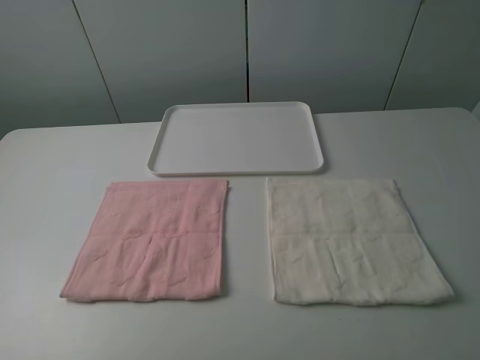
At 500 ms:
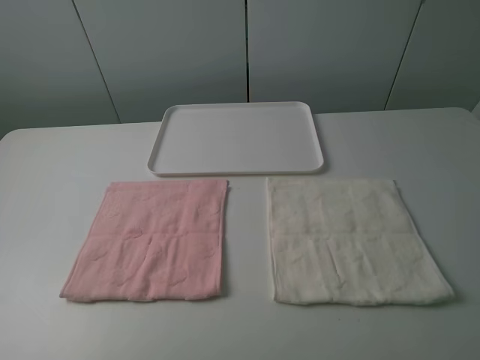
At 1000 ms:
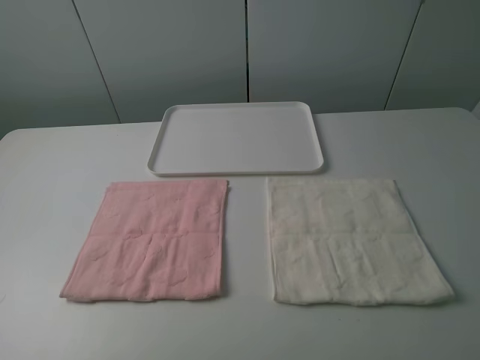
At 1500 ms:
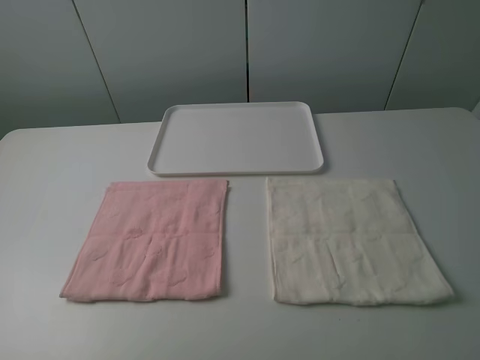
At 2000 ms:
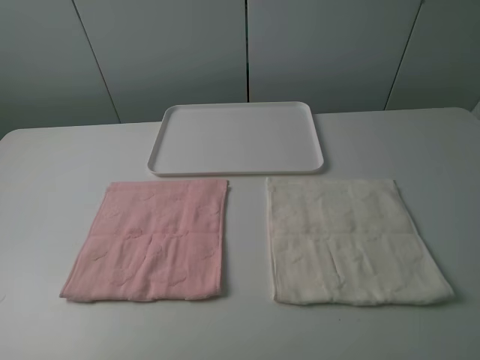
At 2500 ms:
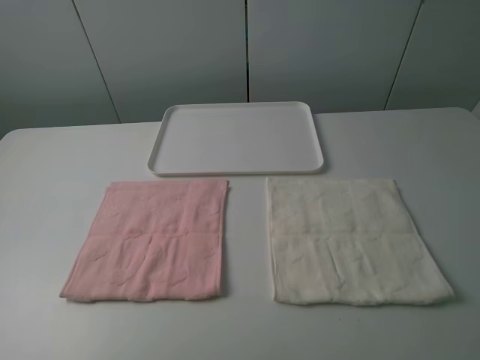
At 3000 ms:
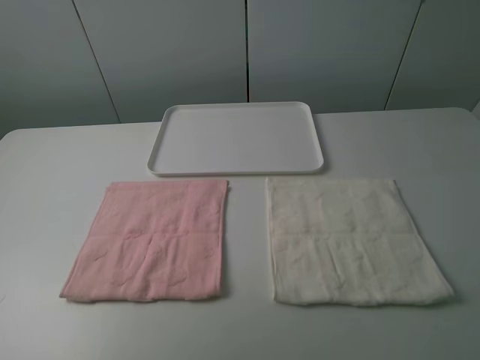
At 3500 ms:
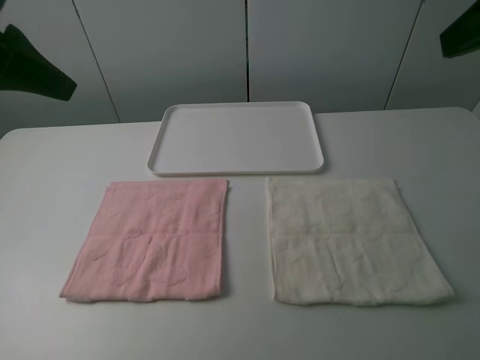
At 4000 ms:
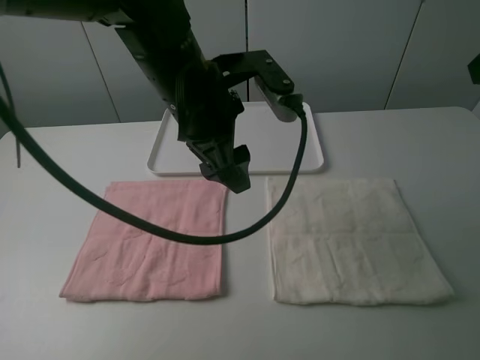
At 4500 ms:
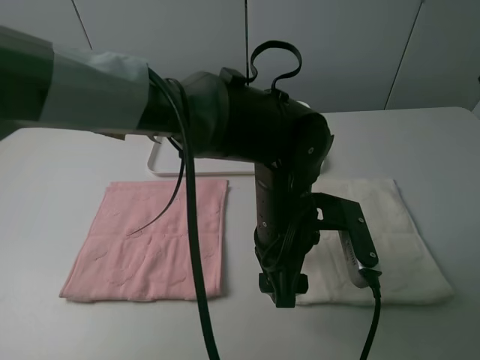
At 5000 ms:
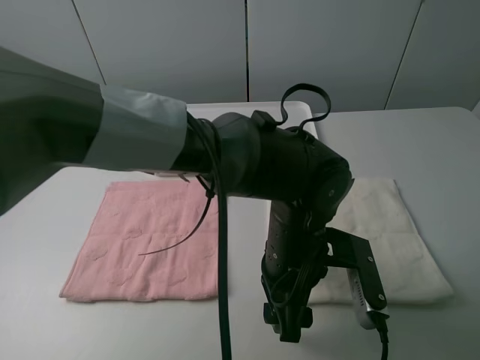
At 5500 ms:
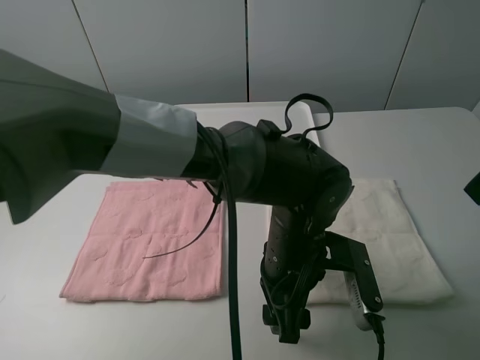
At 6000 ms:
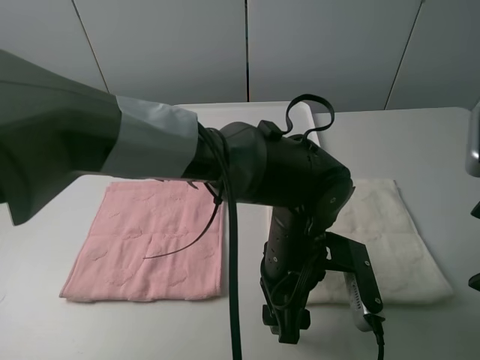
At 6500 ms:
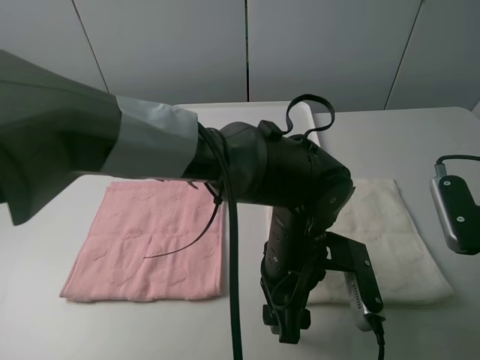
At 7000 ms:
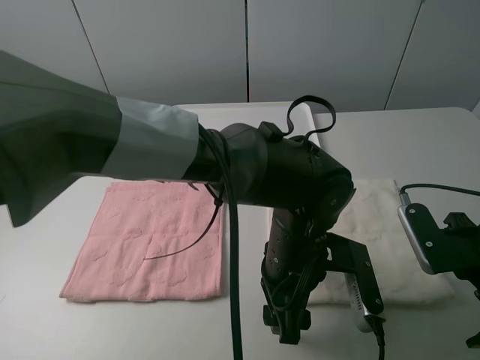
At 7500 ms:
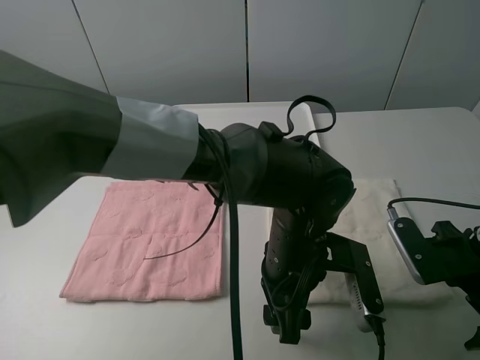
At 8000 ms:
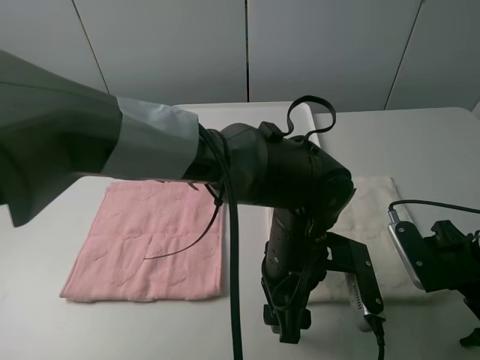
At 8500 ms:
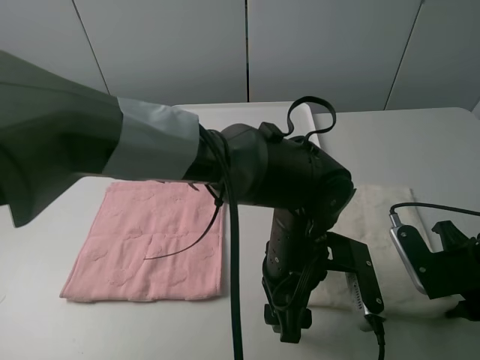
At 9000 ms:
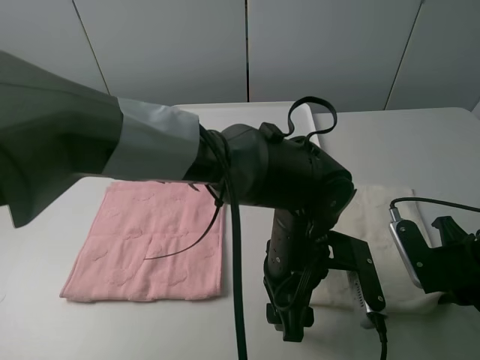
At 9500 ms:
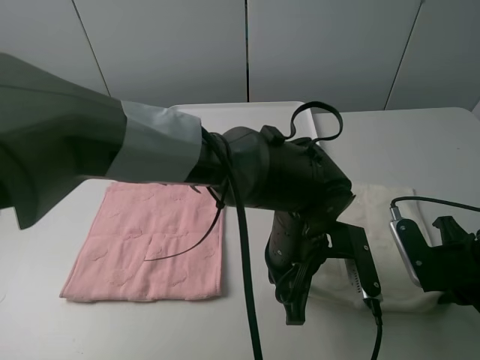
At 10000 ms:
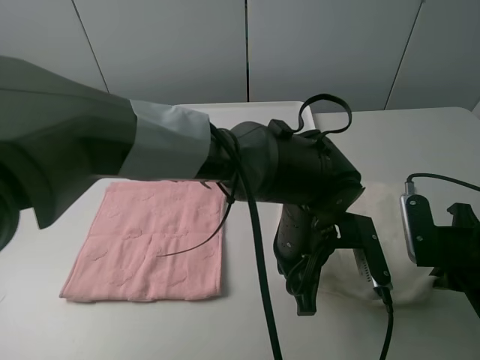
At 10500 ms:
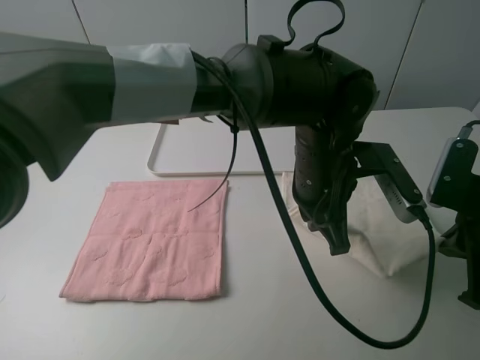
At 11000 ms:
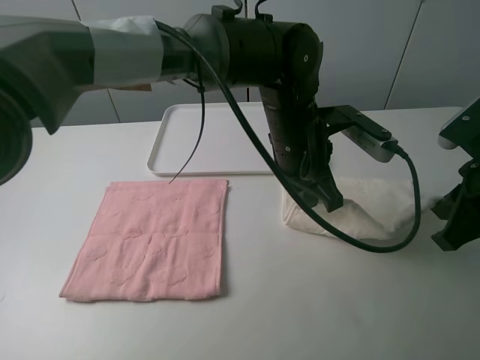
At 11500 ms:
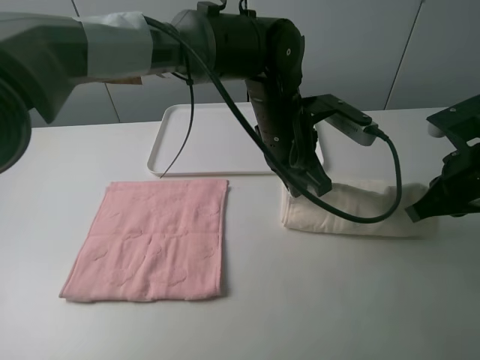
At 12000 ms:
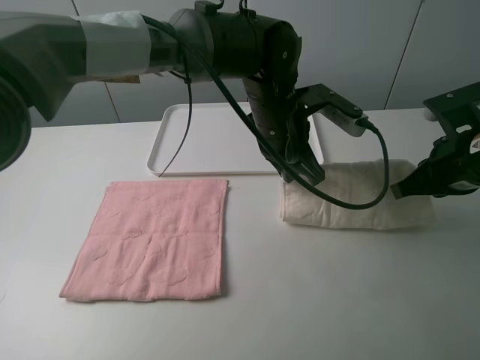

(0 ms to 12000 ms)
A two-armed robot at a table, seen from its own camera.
Task of the whole recording: fold one of the towels by two grippers and place it on the tray,then fold another towel by two grippers and place it on the folded towel.
Step, 0 ms - 9500 ms: Grasp the white towel with the left gripper.
0 ms - 2000 ms: Both grippers stay about where they are.
2000 ms - 4000 ms: The left gripper travels forward and to the right by approximately 40 cm. The right gripper shifts approximately 20 cm forward and upward.
4000 ms - 6000 ms: The right gripper shifts about 15 cm downward. The left gripper shifts roughly 20 cm downward, to the right and backward.
6000 ms - 8000 ms: The right gripper travels downward by about 10 cm.
8000 ms - 10000 ms: The right gripper closes up. Meanwhile the left gripper closes up.
10000 ms - 12000 ms: The right gripper travels forward by approximately 10 cm; the left gripper heads forward and upward, covering roughly 15 cm.

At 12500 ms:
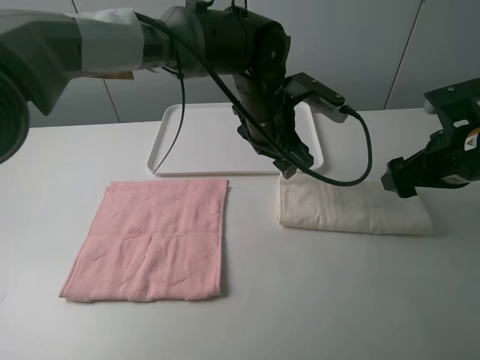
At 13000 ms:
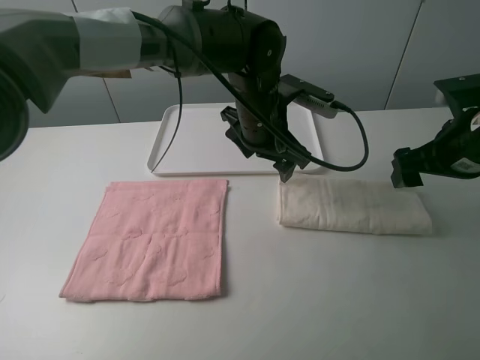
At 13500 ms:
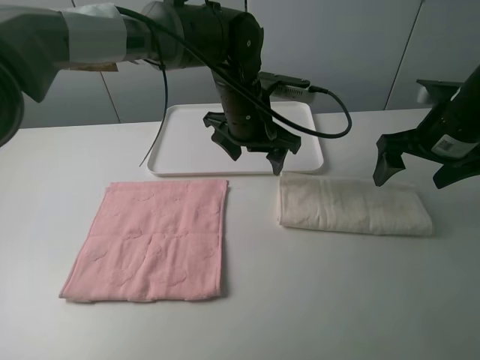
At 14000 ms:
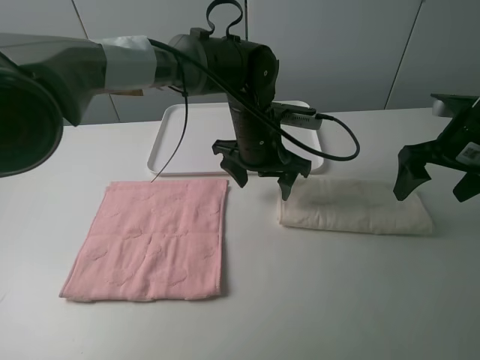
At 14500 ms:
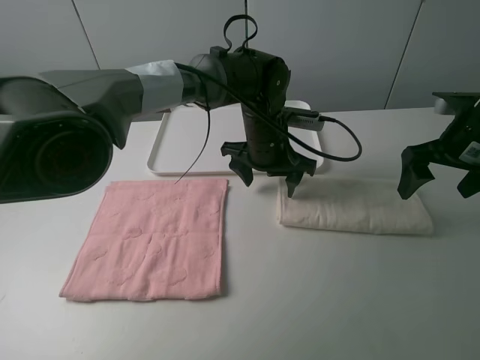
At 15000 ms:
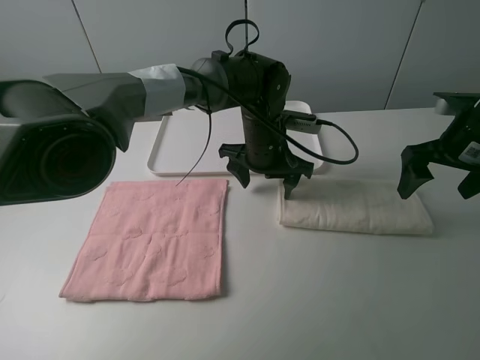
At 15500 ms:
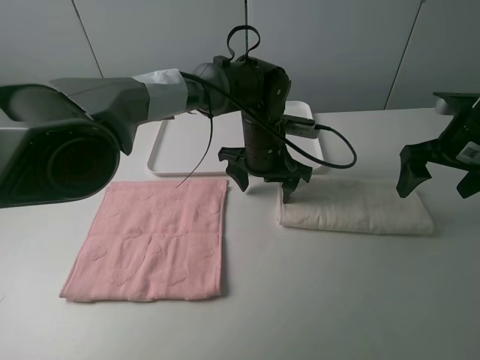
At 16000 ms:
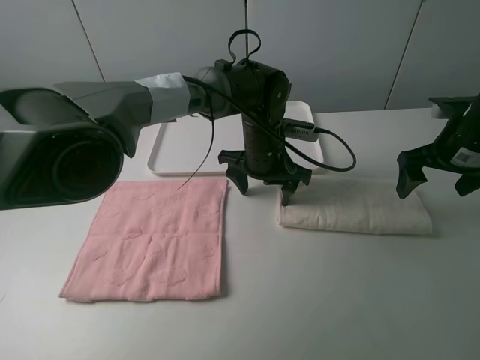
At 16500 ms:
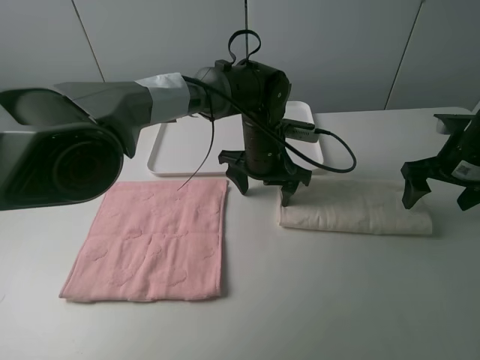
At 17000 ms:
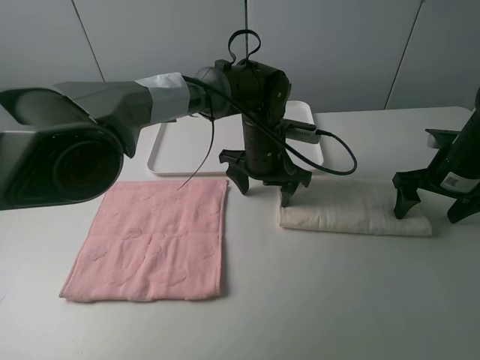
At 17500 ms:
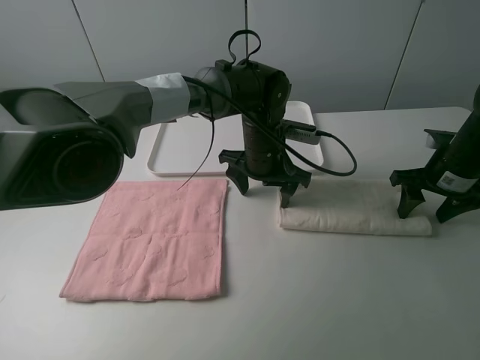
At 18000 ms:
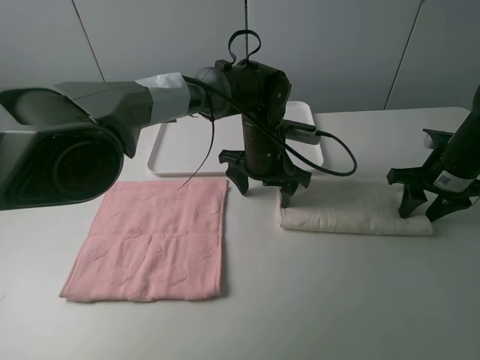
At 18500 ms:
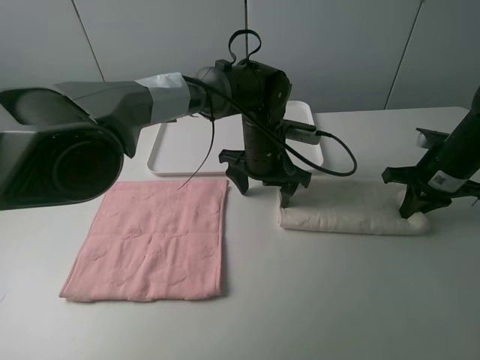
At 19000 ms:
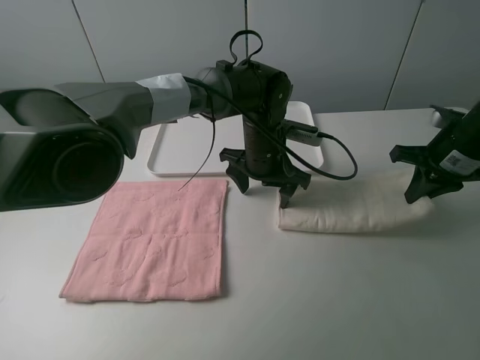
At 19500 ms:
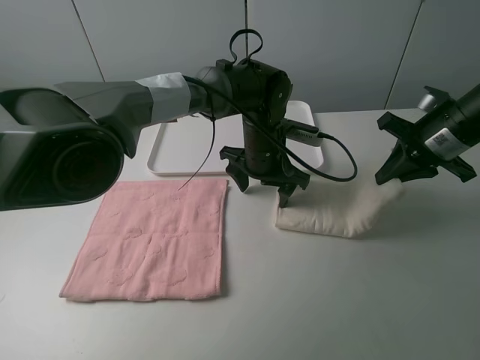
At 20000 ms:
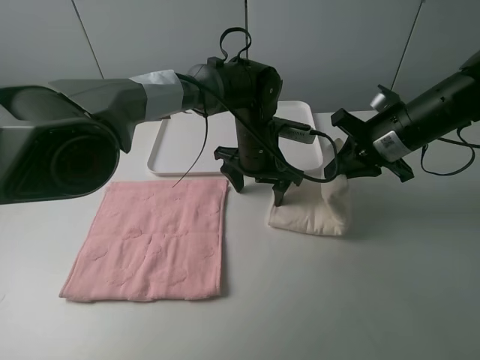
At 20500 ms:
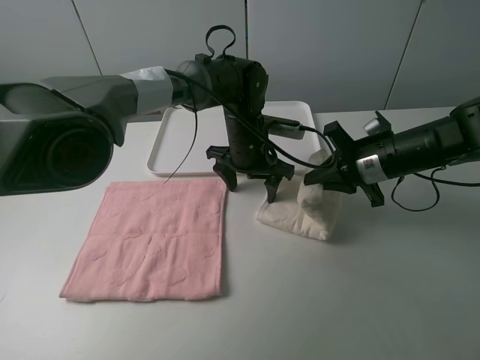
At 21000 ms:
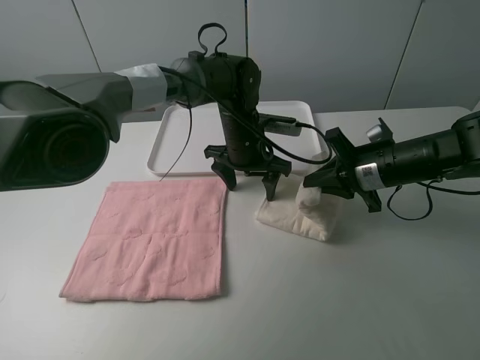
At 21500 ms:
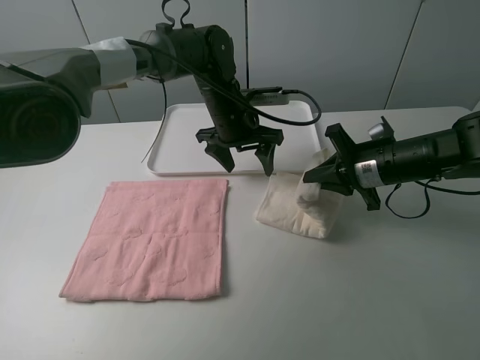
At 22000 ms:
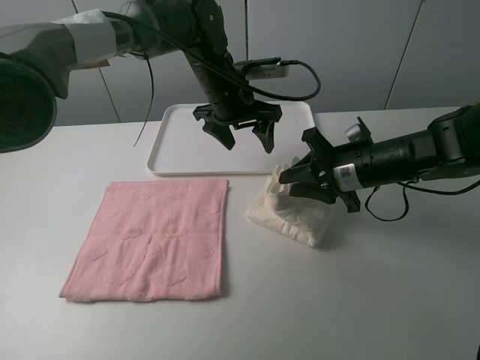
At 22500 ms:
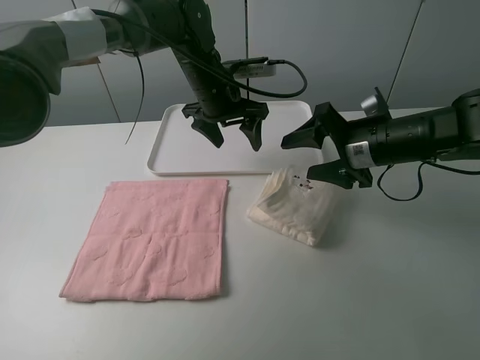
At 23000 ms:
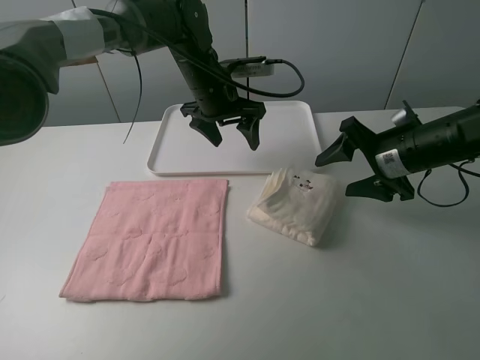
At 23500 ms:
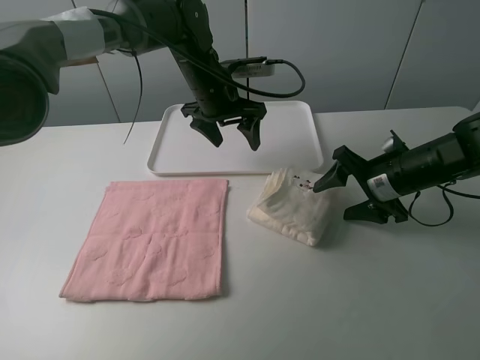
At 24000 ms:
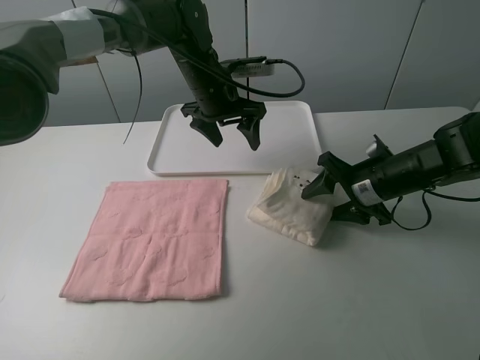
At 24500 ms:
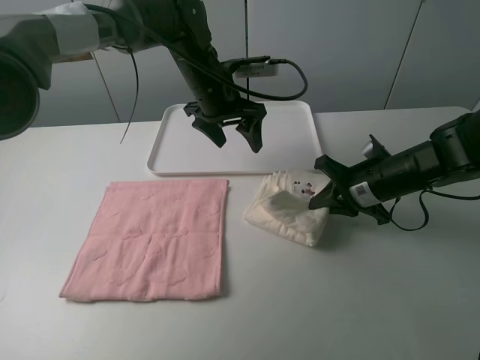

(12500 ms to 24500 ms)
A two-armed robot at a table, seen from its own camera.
Task of the whole recording: fold one of the towels by two grippers and place it on the tray,then fold another towel by two grippers and place it on the folded towel.
Step, 14000 ms - 15500 ms: Press the white towel with the left gripper.
Step, 16000 ms - 18500 ms: Grasp the white towel with the right gripper.
Step, 19000 ms - 22000 ms: Fold the white towel from right to left with right gripper.
Step, 22500 ms - 24000 ms: Grasp the white towel with the right gripper.
12500 ms - 14500 ms: The right gripper changes place by some 5 cm. The left gripper heads downward, covering roughly 5 cm.
14500 ms - 16500 ms: The right gripper is displaced downward by some 5 cm.
16500 ms - 18500 ms: The right gripper closes its fingers.
18500 ms - 20500 ms: The right gripper is displaced to the left by about 10 cm.
20500 ms - 22500 ms: The left gripper goes roughly 10 cm upward and to the left; the right gripper opens.
22500 ms - 24500 ms: The right gripper shifts roughly 5 cm downward, and closes its fingers.

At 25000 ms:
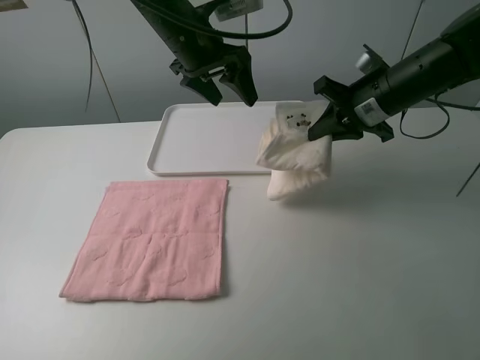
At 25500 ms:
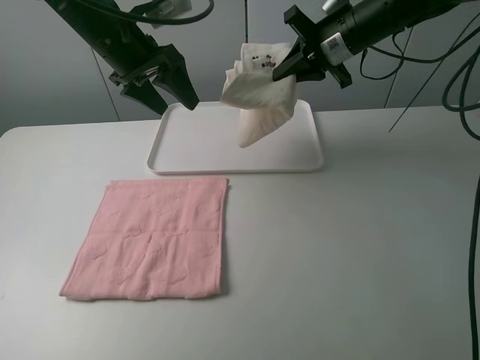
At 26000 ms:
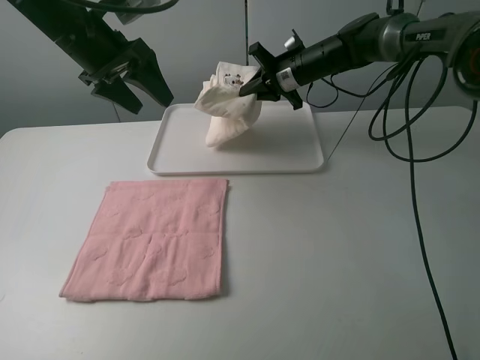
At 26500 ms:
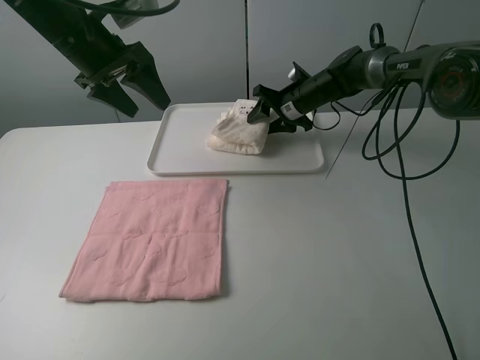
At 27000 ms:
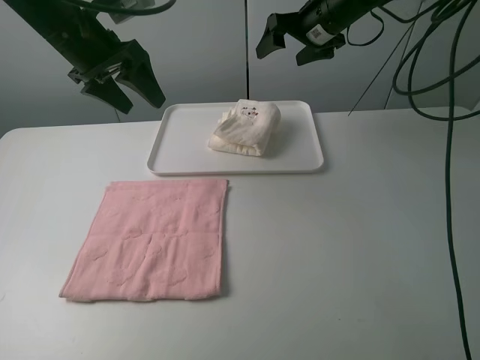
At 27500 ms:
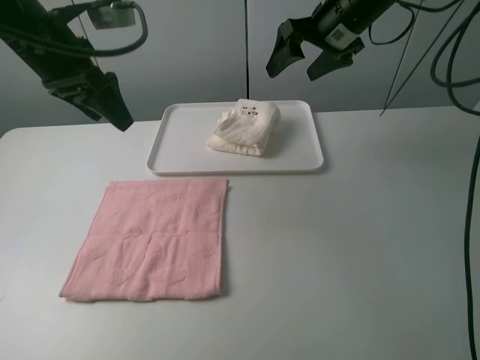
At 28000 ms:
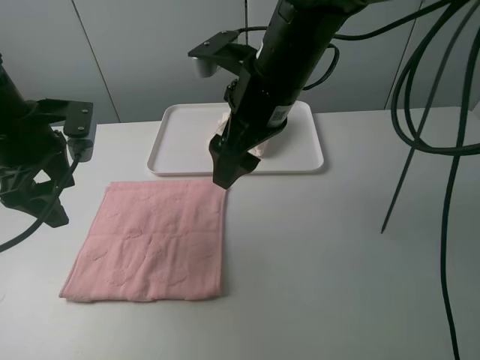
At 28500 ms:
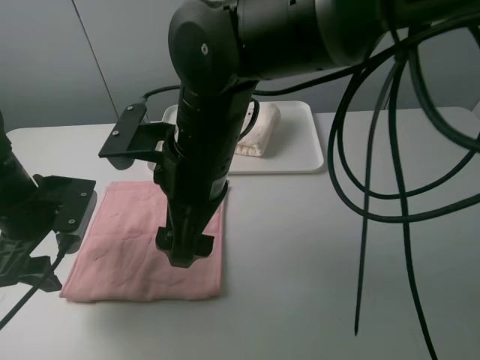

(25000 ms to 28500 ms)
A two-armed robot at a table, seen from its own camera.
Task of the whole recording: fold one of the towels by two grippers and place it on the tray,then fold another towel by two grippers and place it on the folded towel.
Step, 25000 ms - 26500 ms: Move the white towel to the plate with the right gripper.
25000 ms - 27000 ms: The left gripper travels to the left by approximately 15 cm; the right gripper shifts some 15 cm forward and to the left, travels downward and back again, about 10 cm each way, and opens its fingers.
27000 ms - 28500 ms: The right gripper moves backward and to the left, roughly 35 cm. The left gripper travels backward and downward by about 20 cm.
